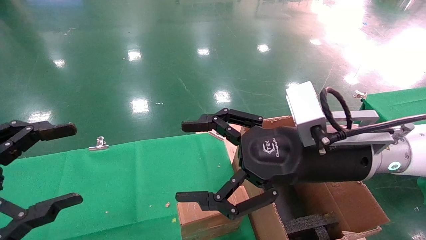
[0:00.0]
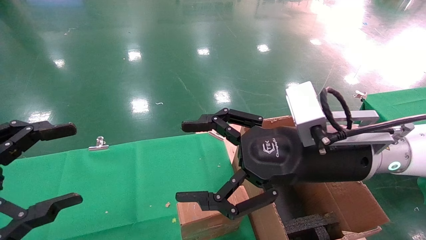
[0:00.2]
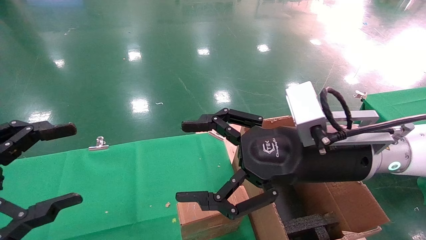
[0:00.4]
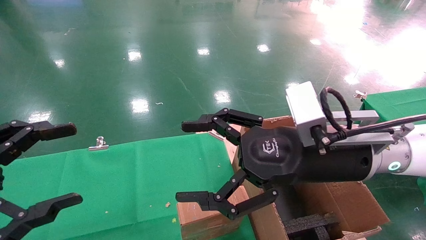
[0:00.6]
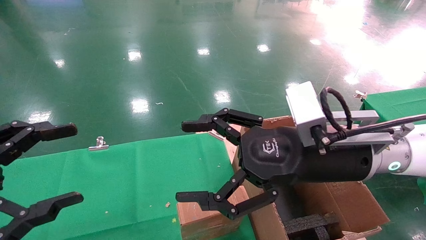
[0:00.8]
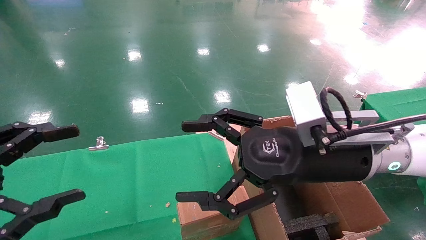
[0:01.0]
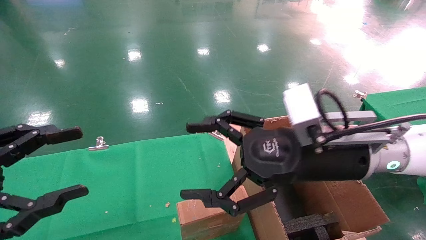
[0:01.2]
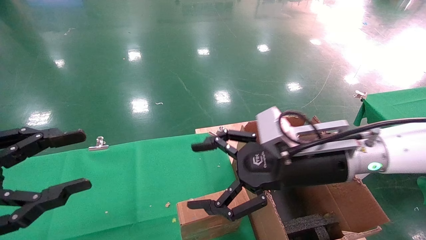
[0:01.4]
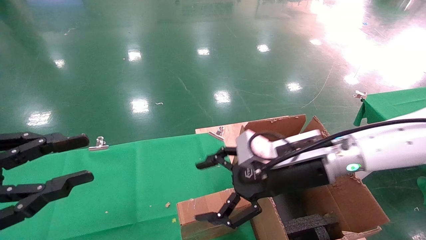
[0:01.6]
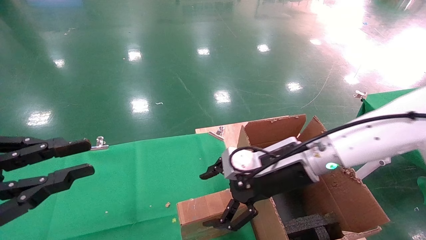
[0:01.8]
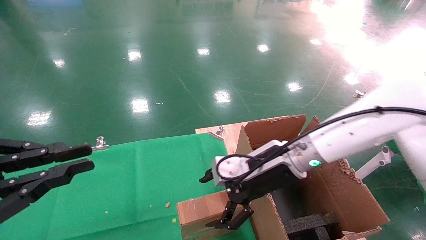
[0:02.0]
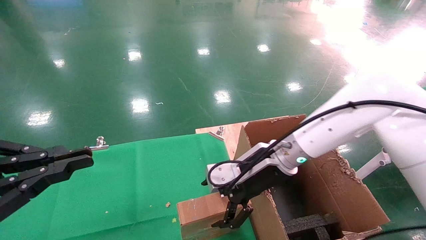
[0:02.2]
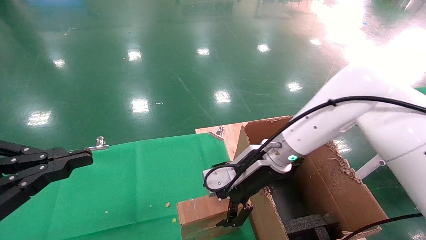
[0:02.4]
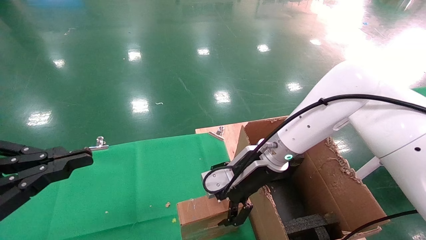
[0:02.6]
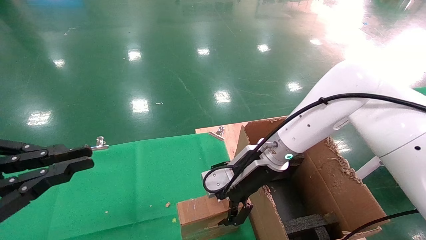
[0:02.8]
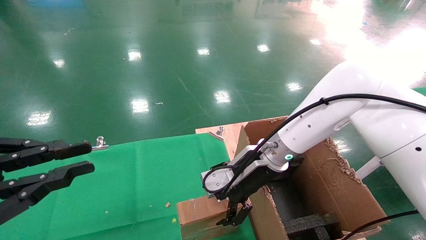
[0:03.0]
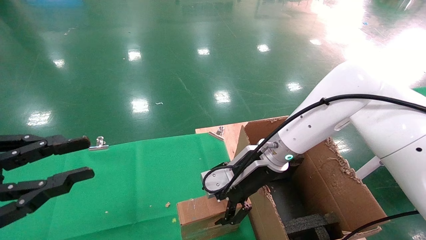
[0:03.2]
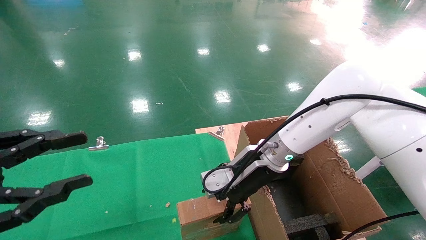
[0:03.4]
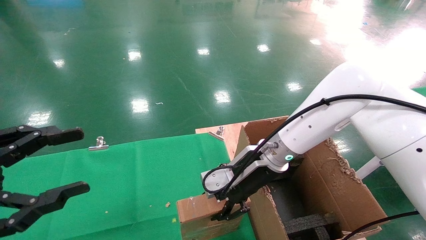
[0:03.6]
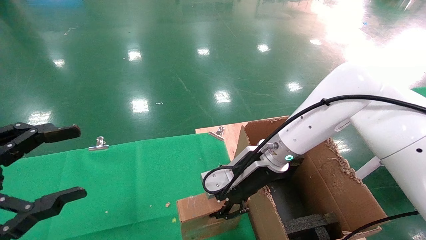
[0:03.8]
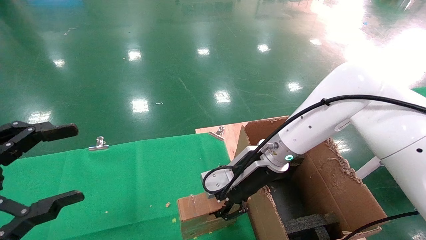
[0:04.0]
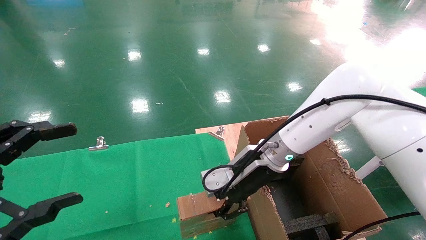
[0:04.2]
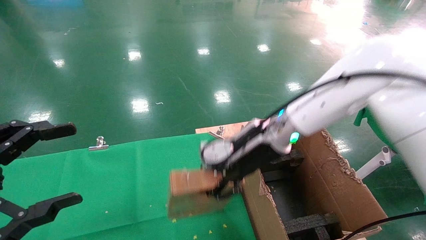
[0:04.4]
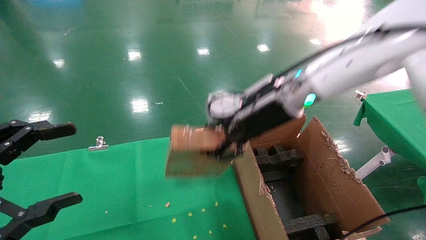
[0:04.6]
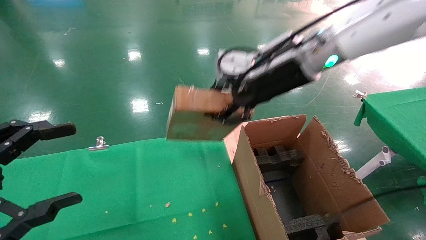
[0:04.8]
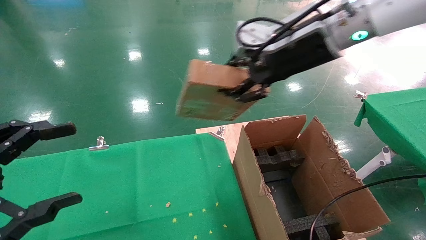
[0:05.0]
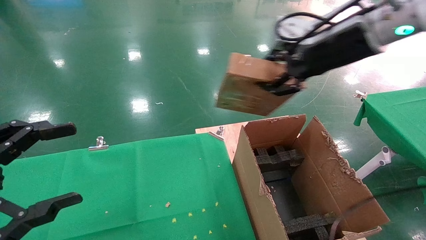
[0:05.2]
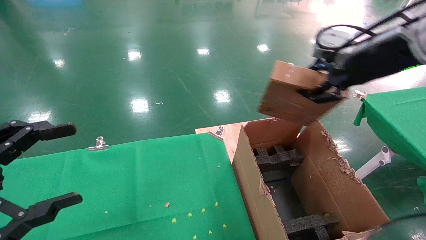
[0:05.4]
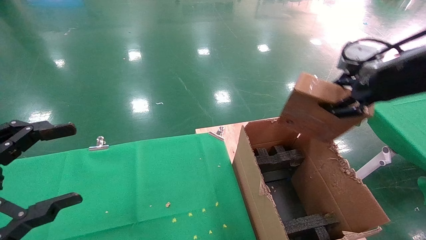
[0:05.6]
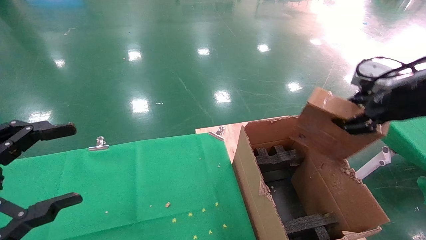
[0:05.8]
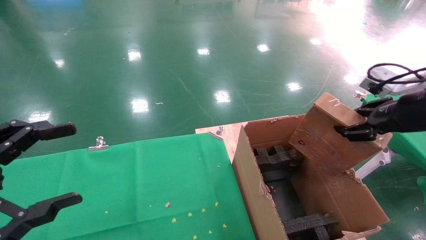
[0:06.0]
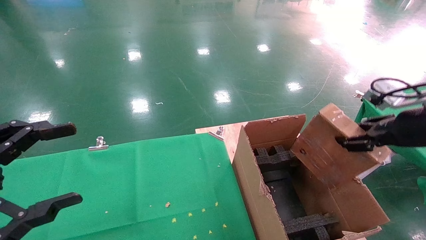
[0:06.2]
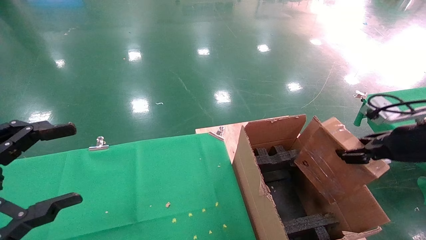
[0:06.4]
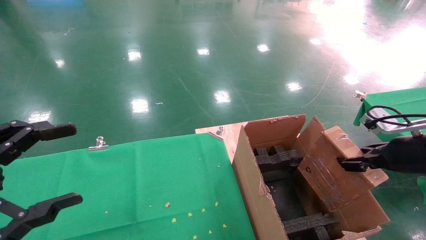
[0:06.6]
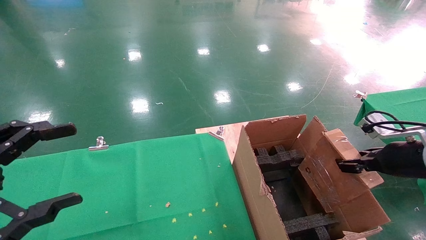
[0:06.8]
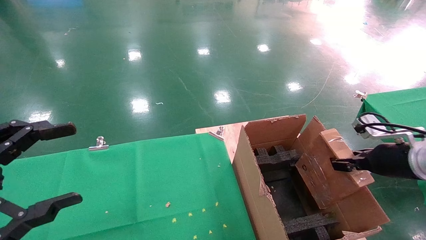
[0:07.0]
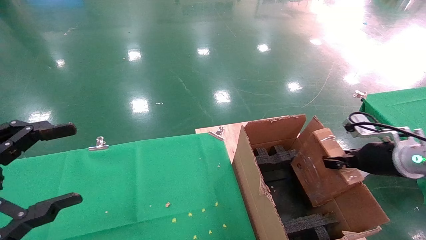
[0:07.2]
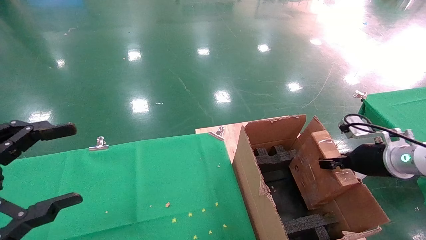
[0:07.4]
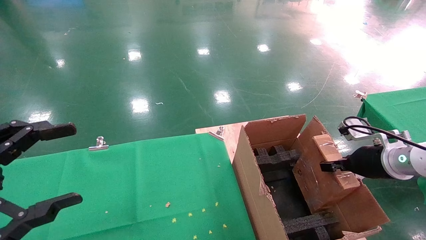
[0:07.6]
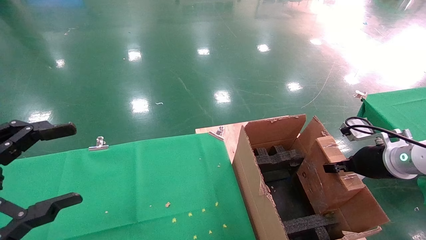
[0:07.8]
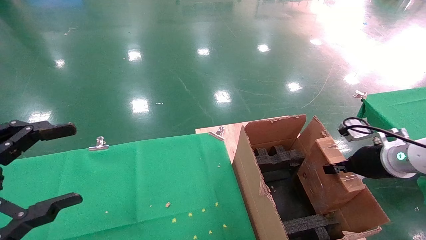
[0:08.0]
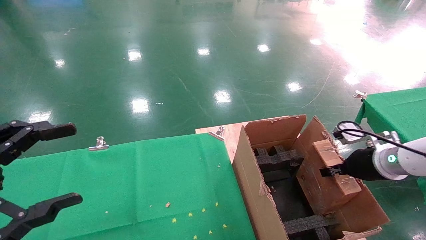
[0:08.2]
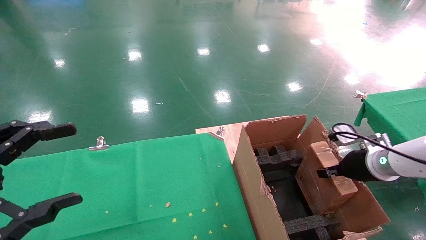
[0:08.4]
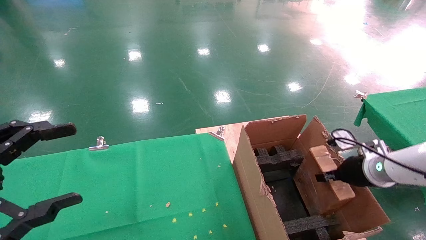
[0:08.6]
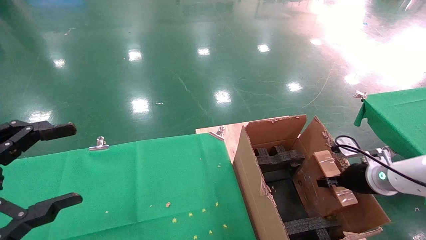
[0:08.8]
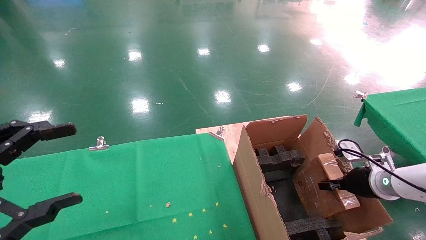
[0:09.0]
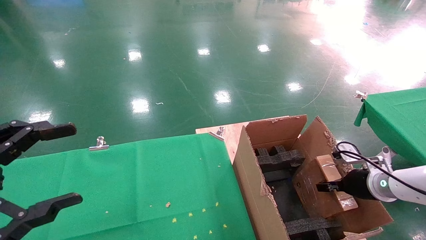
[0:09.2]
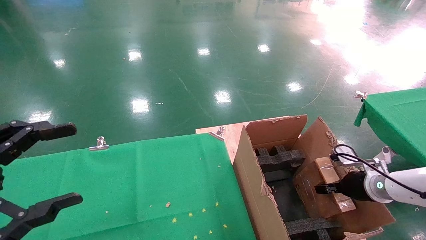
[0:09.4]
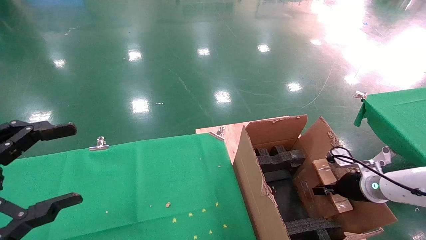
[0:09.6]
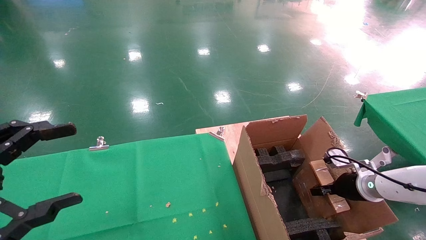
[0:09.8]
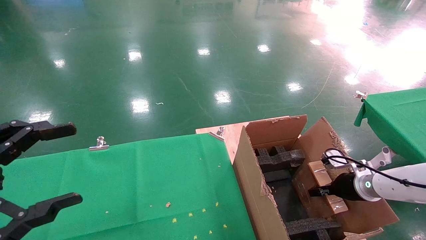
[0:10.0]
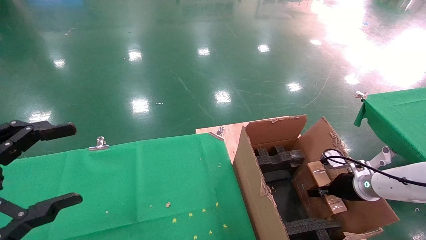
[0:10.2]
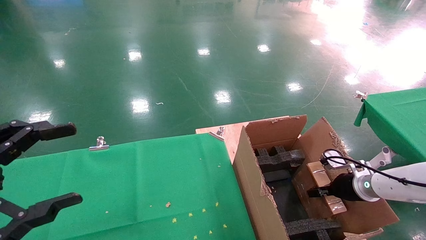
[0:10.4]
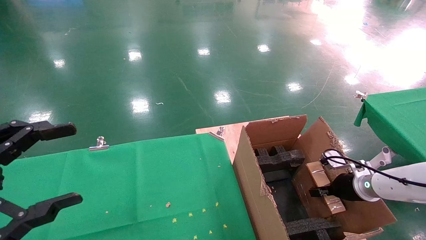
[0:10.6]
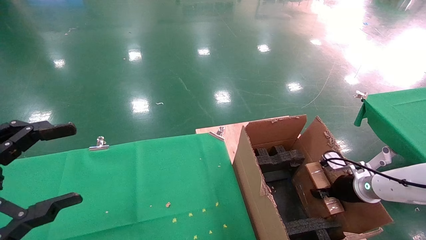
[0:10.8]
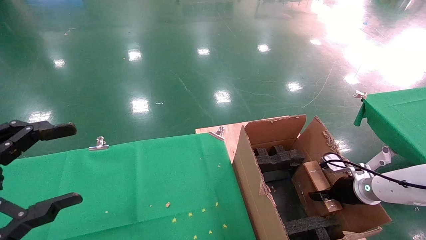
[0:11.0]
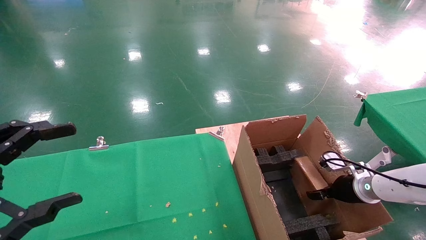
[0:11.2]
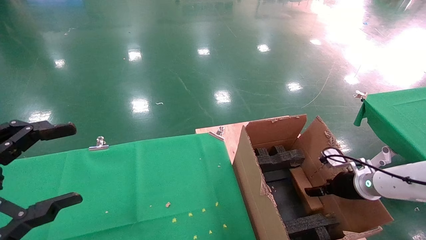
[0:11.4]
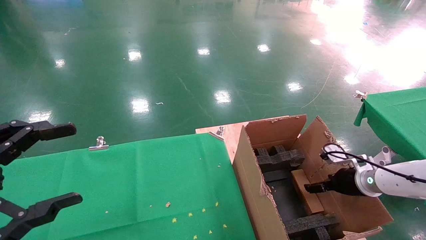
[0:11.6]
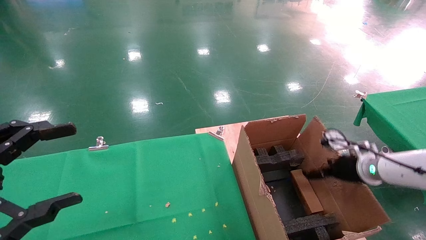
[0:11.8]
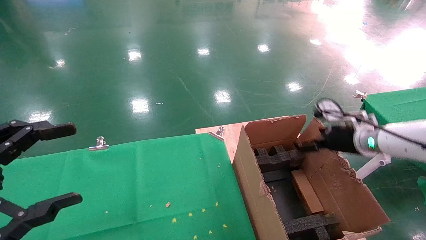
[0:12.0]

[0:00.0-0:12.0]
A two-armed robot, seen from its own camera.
Task of the whole recording: using a robotic arm to pick up a cardboard box and palace it the carton.
Step, 0:01.4 to 0:04.0: Pick up the mouse and the power cord paper box.
0:00.0 to 0:01.6: The left gripper closes its fingers; the right gripper changes place by some 5 cm.
0:01.6 to 0:03.0: The right gripper goes about 10 cm forward. Meanwhile the left gripper closes up.
0:03.0 to 0:04.4: The left gripper opens its fingers, while the right gripper shifts about 5 cm upward, and closes.
0:04.4 to 0:06.0: The right gripper travels to the right and backward by approximately 30 cm.
0:06.0 to 0:07.6: The right gripper moves downward and forward, approximately 15 cm.
0:07.6 to 0:09.0: The right gripper heads downward, covering about 10 cm.
0:09.0 to 0:10.4: The right gripper is displaced downward by about 5 cm.
0:10.4 to 0:12.0: The right gripper shifts approximately 15 cm upward, and opens.

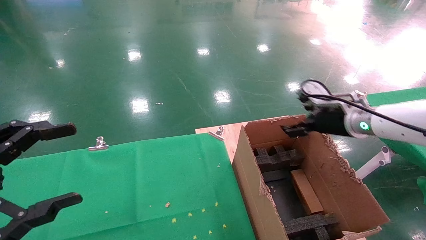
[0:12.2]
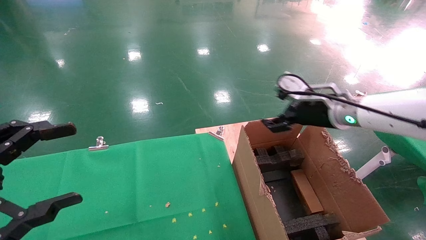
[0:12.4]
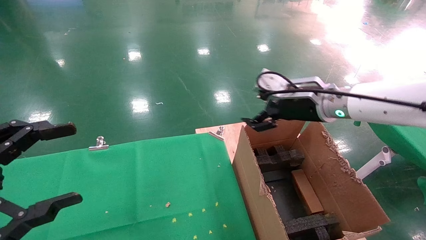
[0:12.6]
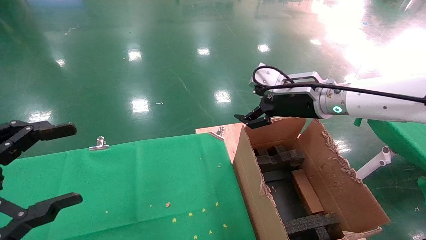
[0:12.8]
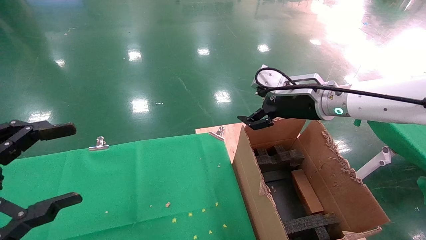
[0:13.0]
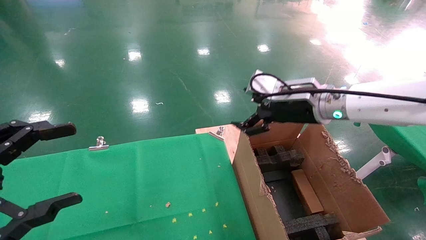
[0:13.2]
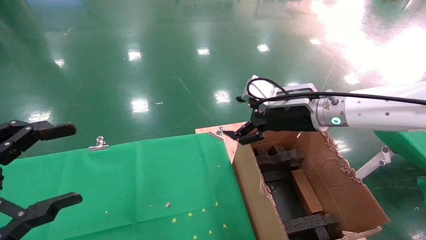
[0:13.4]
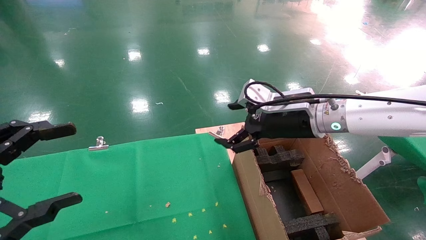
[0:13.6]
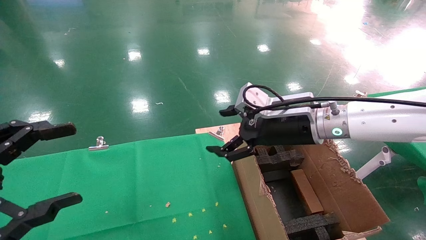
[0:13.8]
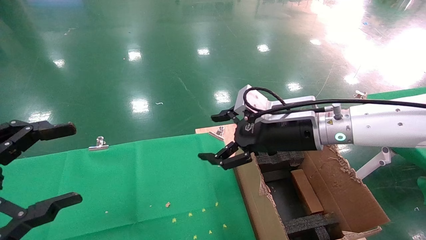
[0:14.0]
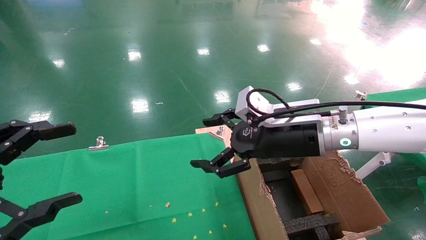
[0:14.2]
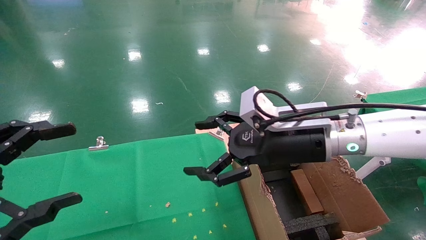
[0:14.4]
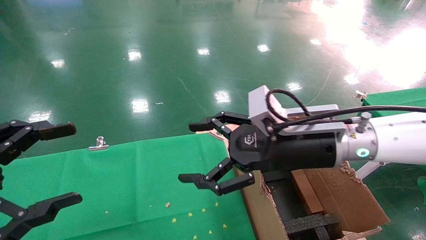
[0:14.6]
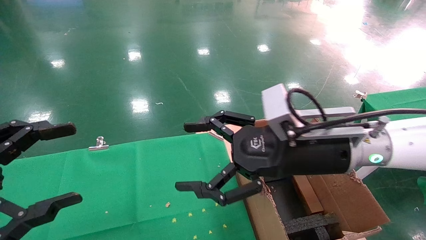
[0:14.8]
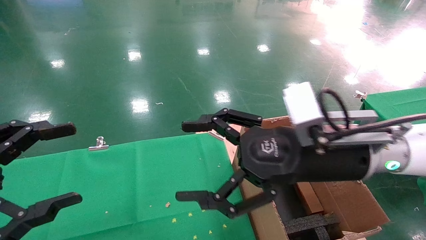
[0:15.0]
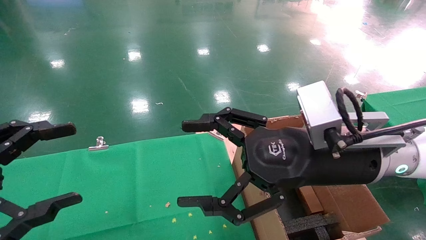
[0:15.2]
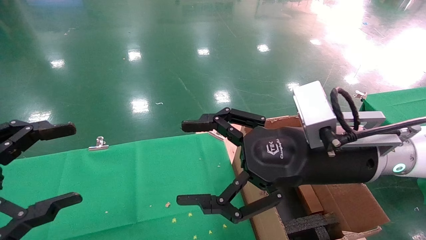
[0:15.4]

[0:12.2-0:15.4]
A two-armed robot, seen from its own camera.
Task of the whole recording: using a robotic arm to pick up a cardboard box and palace it the carton.
0:12.2 to 0:13.8: The right gripper shifts roughly 10 cm to the left.
0:13.8 to 0:15.4: The right gripper is displaced backward by approximately 10 cm.
